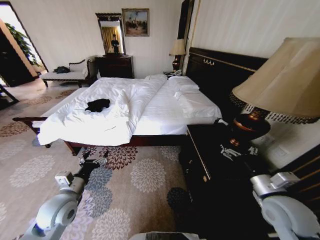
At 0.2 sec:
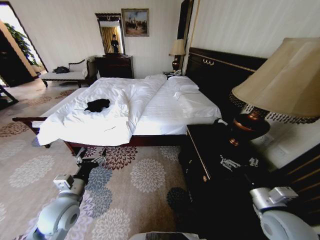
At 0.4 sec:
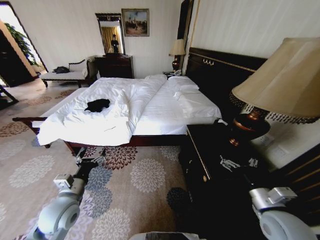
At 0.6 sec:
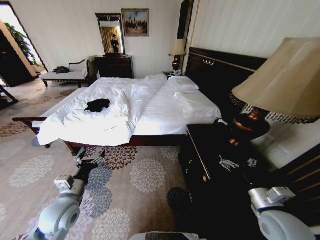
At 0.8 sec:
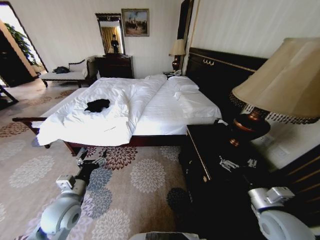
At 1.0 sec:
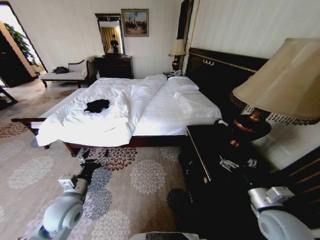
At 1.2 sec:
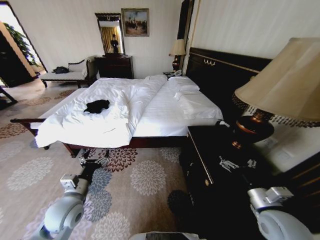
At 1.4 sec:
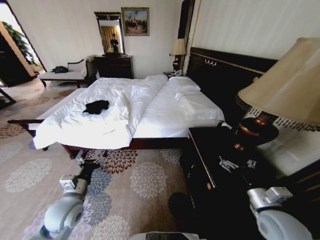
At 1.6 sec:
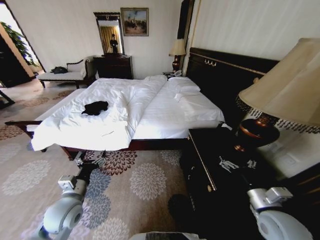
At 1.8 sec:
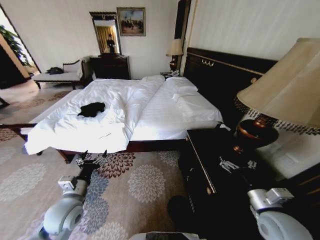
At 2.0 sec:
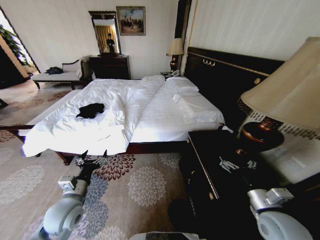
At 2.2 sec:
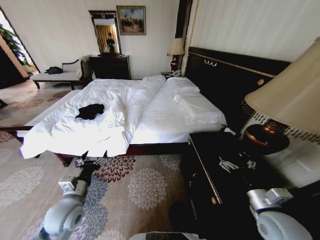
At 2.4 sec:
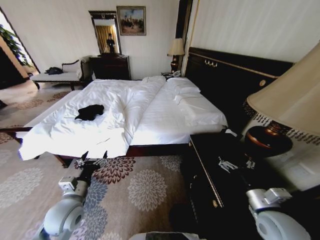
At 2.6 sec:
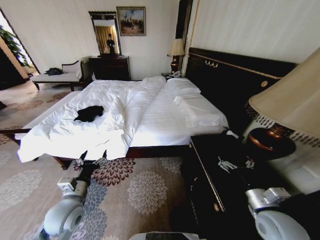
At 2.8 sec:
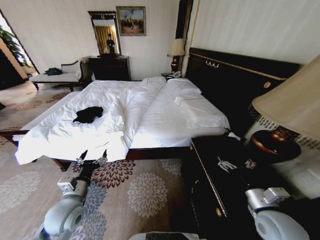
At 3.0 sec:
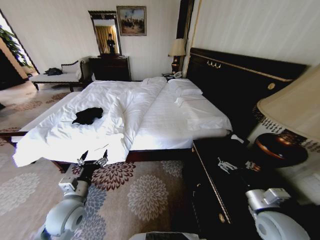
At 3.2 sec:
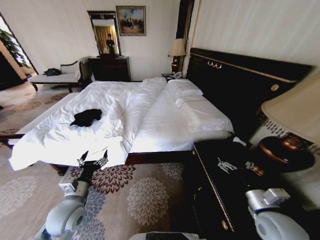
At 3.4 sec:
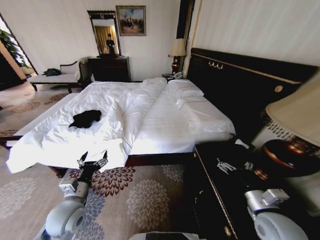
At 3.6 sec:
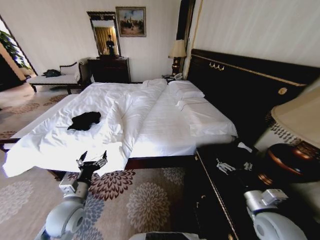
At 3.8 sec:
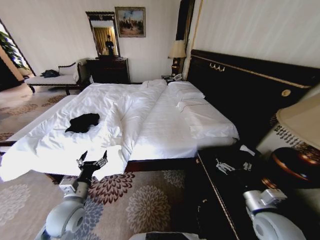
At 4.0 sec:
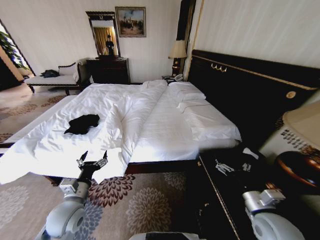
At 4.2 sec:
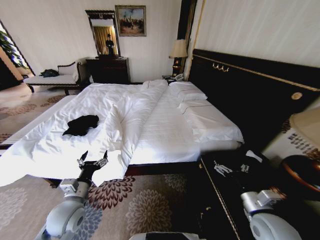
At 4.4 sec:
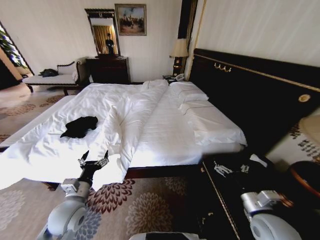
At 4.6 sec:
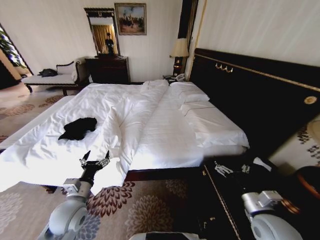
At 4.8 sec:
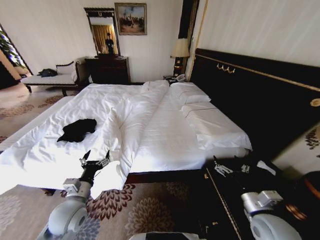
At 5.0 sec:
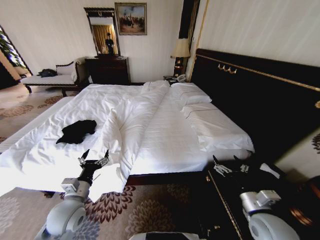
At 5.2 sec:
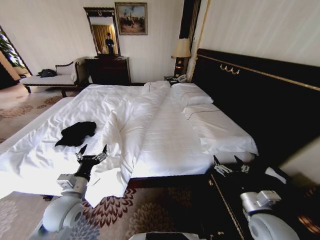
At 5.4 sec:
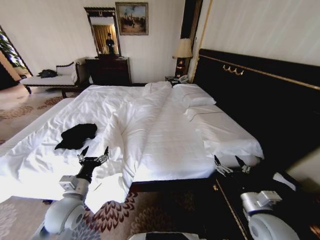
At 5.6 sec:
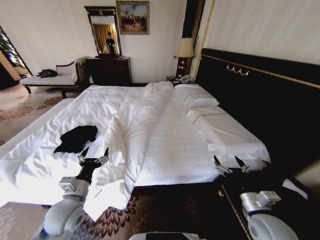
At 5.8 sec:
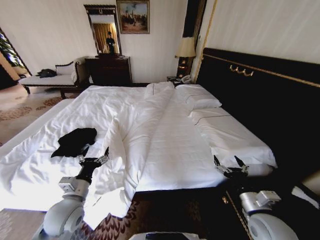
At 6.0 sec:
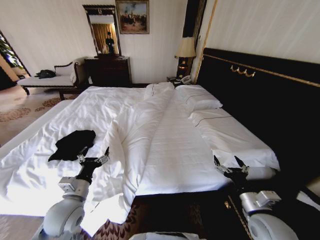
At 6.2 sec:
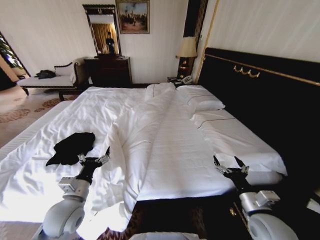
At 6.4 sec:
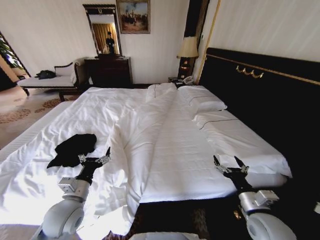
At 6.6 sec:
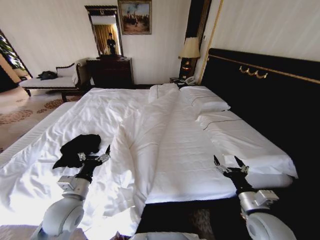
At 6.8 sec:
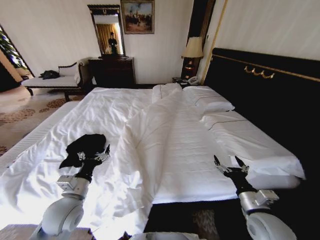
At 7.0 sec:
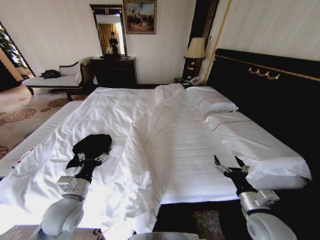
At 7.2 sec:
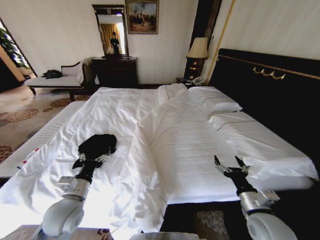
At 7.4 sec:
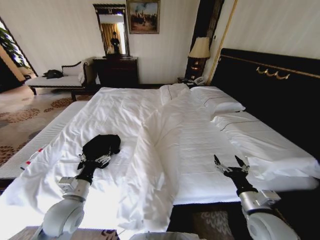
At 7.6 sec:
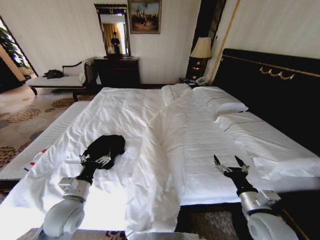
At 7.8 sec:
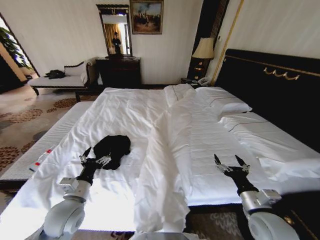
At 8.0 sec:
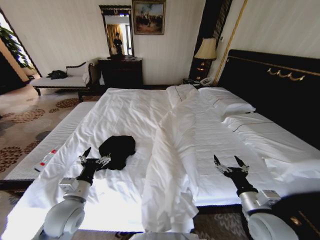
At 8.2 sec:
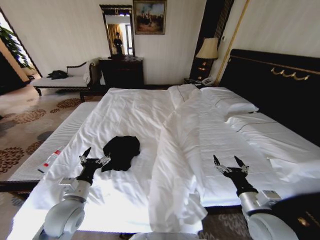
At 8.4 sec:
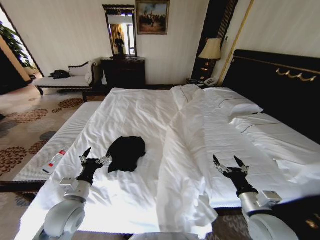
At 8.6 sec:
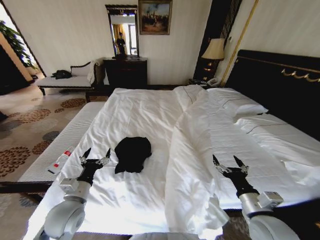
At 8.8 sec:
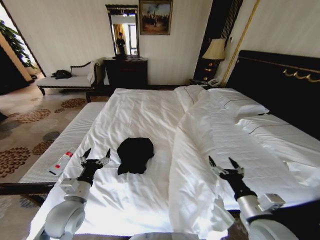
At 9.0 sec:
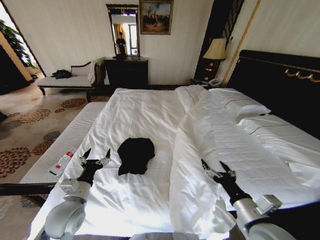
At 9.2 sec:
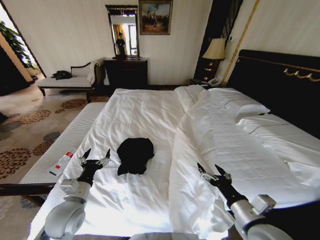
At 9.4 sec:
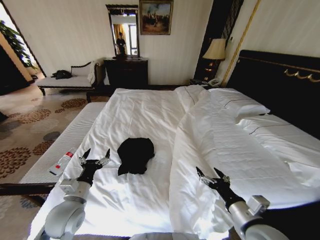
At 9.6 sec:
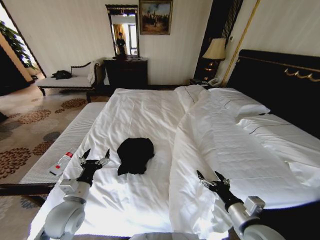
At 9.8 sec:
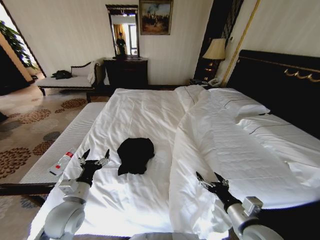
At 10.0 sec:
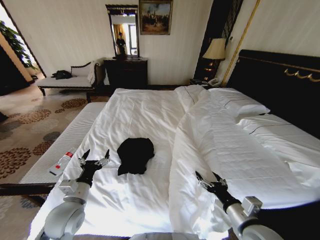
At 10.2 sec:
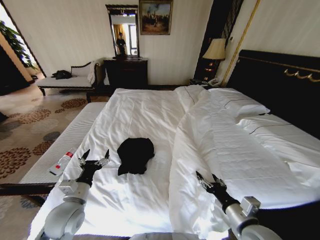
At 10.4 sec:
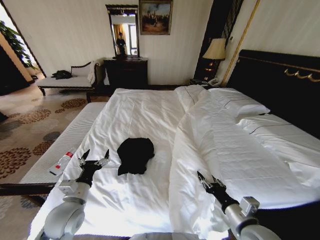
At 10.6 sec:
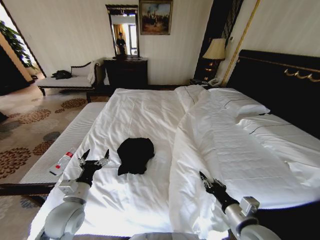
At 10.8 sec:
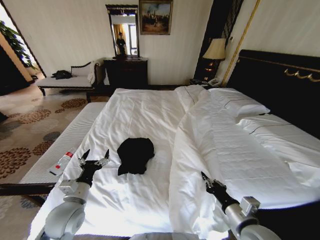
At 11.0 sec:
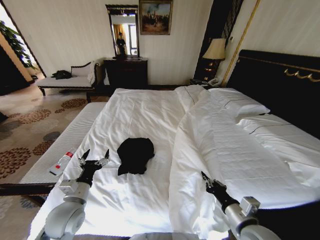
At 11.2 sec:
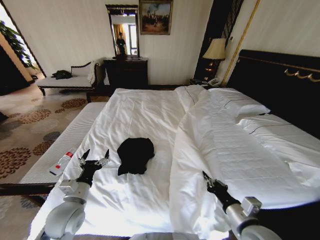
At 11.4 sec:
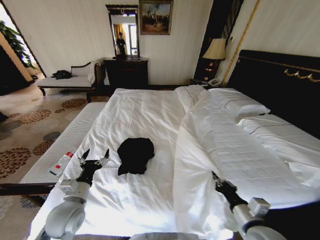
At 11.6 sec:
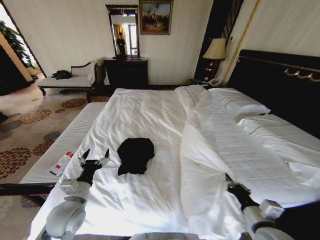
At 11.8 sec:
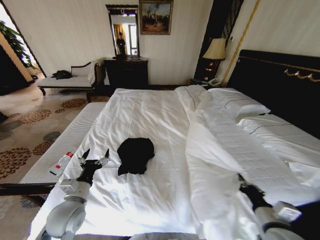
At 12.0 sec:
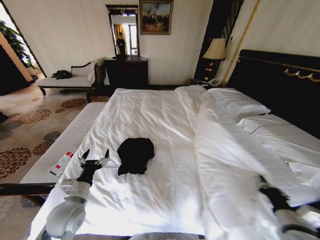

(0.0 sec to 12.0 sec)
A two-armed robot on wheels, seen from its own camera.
Task of the whole recording: Fold the clothes on the bed.
7.6 sec - 9.0 sec: The right gripper ends up approximately 5 cm from where it was.
9.0 sec - 10.4 sec: The right gripper closes up.
10.4 sec - 12.0 sec: The right gripper is displaced to the right by some 10 cm, and closes its fingers.

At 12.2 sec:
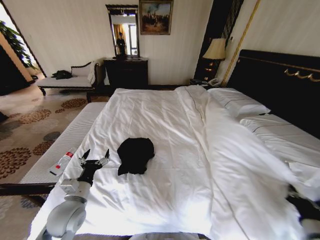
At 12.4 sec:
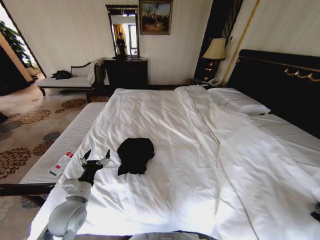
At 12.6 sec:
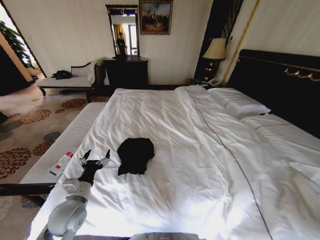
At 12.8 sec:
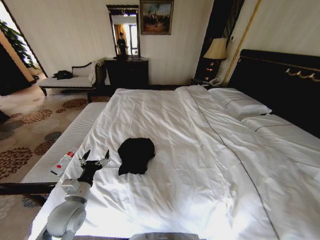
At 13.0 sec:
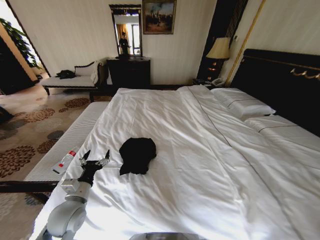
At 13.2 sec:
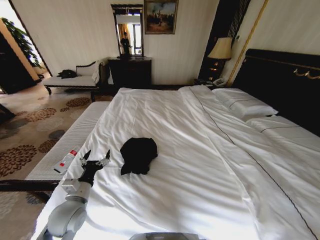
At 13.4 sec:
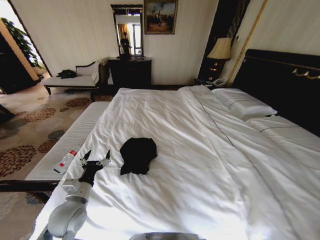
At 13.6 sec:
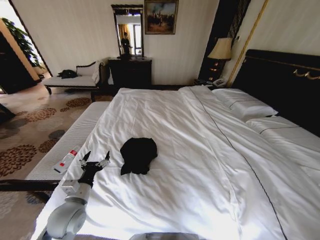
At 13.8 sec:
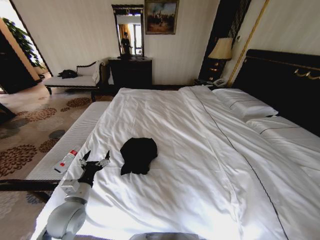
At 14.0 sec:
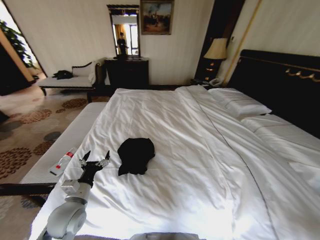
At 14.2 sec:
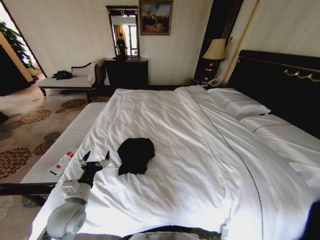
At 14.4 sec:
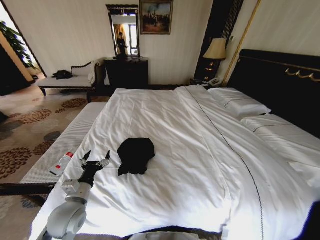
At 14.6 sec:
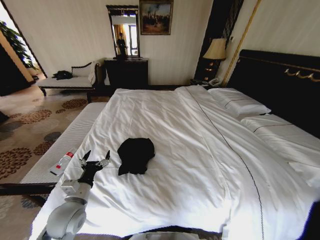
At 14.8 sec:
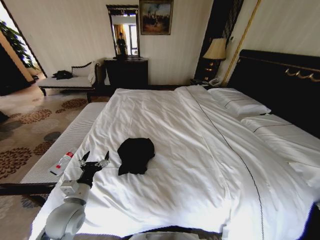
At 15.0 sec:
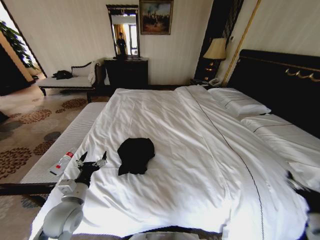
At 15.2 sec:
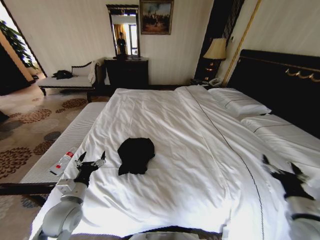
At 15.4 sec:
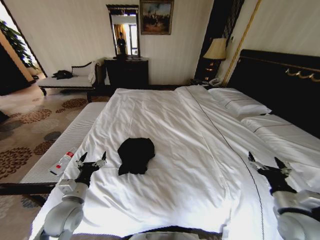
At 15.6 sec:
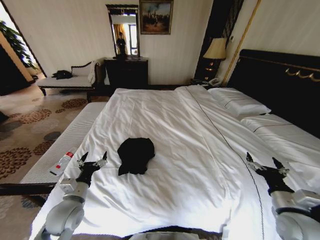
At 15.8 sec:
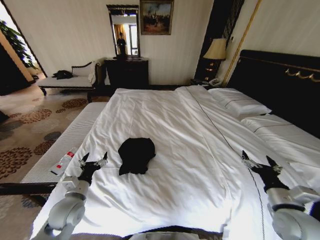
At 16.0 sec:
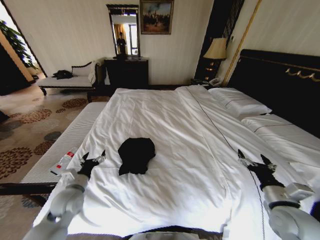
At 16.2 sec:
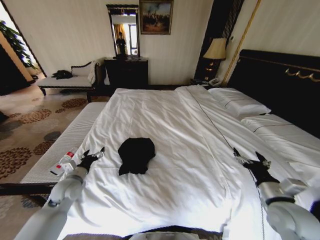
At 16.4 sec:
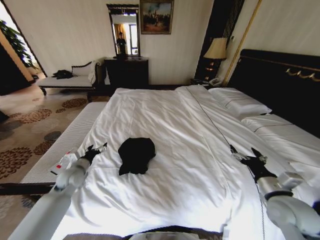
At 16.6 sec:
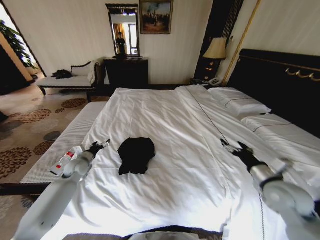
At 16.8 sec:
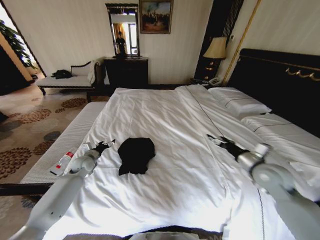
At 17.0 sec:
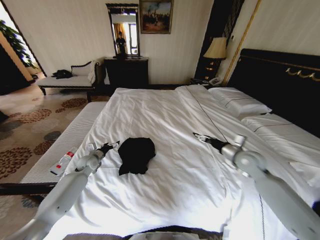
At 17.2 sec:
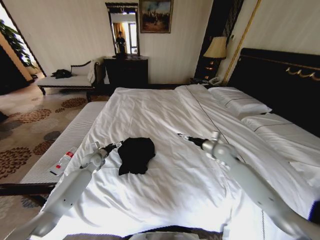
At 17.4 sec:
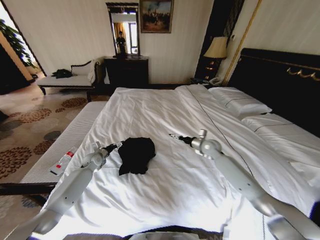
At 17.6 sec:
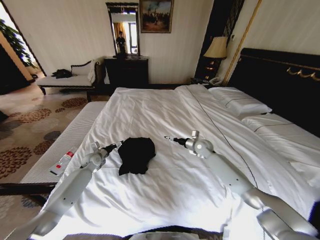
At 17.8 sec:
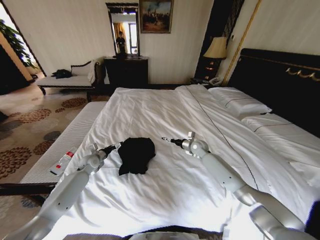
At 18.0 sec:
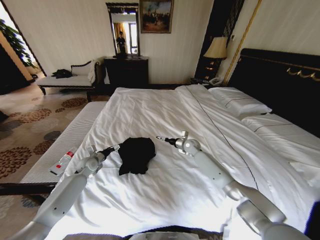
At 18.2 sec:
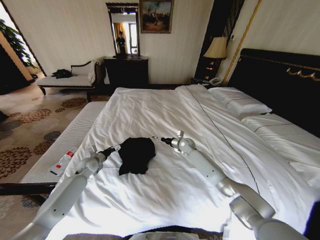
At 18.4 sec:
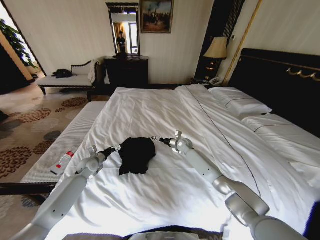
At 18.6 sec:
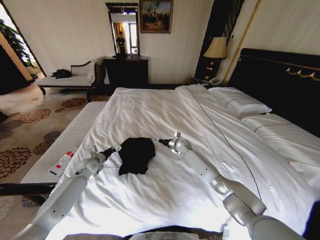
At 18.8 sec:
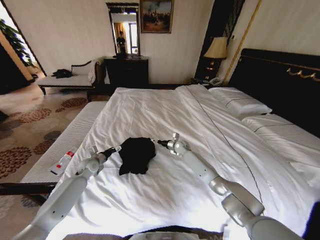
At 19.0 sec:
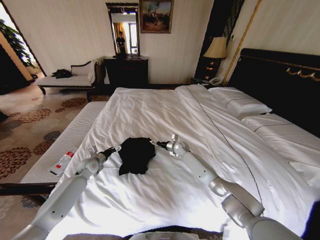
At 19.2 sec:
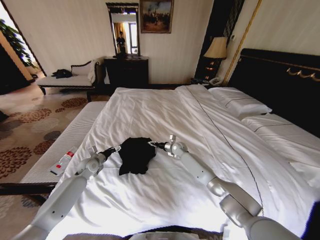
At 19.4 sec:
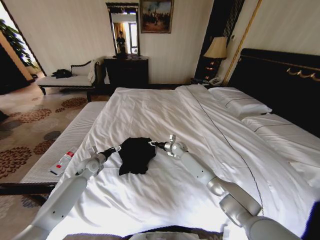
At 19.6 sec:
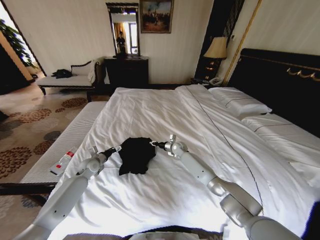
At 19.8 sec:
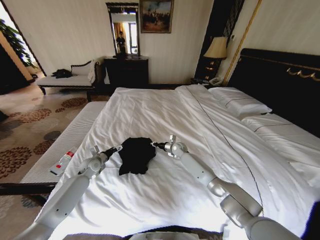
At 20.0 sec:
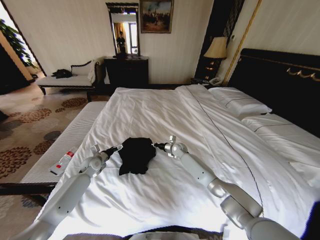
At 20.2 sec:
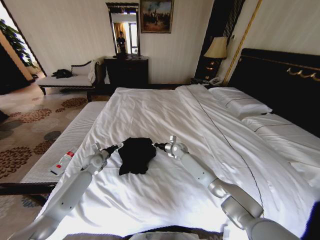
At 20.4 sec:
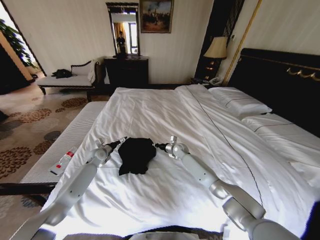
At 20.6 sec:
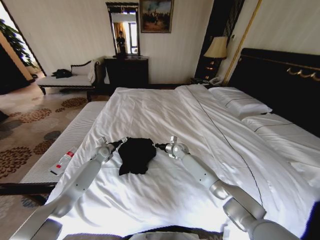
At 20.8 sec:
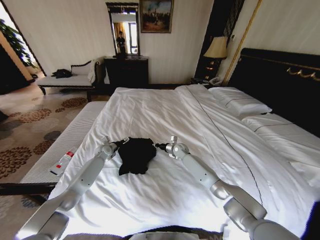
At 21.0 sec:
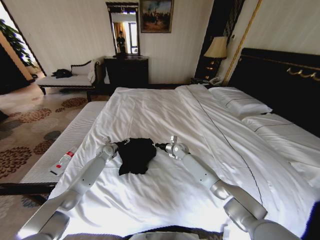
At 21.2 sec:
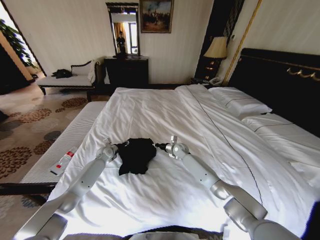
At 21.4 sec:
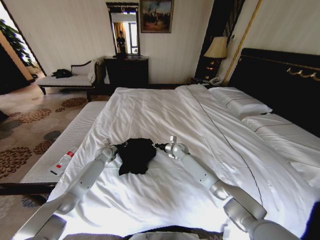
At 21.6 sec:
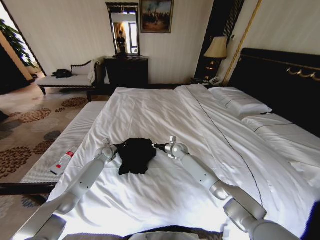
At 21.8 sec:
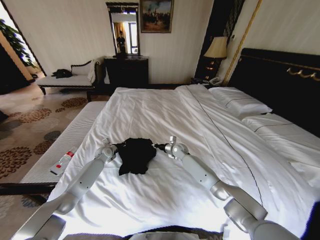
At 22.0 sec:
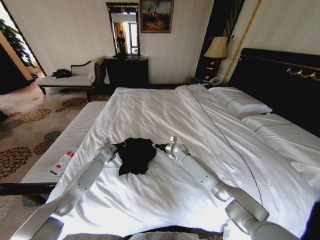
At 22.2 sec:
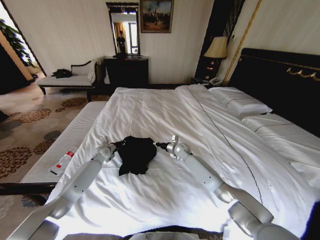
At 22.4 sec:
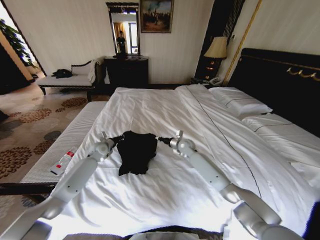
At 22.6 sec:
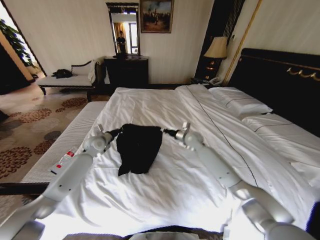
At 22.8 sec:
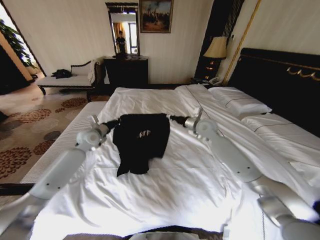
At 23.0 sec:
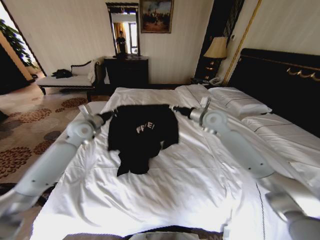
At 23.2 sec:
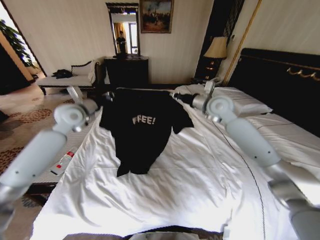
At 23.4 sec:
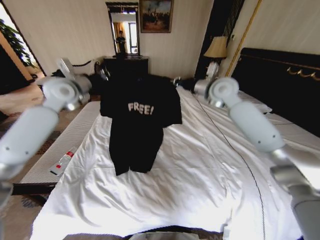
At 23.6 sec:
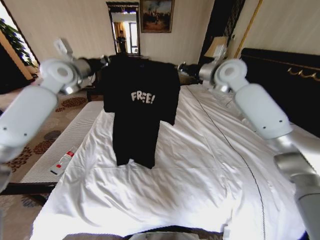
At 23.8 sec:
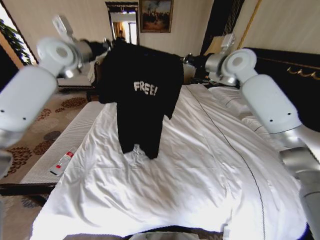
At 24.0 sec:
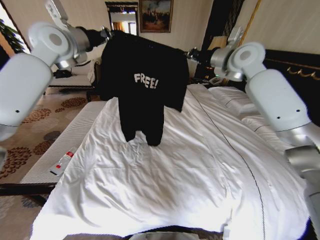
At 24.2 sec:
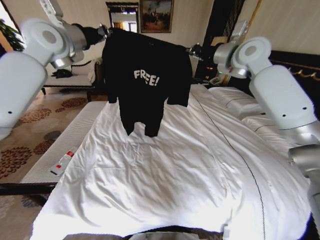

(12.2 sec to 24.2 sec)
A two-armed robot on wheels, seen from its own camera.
Task of the whole recording: Fold the clothes on the bed.
12.2 sec - 13.8 sec: The right gripper heads to the right, downward and backward, covering about 25 cm.
13.8 sec - 15.2 sec: The right gripper shifts roughly 30 cm to the left, upward and forward, and opens.
15.2 sec - 16.6 sec: The right gripper shifts about 10 cm forward. The left gripper travels forward by approximately 20 cm.
16.6 sec - 18.2 sec: The right gripper travels forward and to the left by some 40 cm.
18.2 sec - 19.8 sec: The right gripper closes up.
19.8 sec - 21.2 sec: The left gripper is displaced forward by some 10 cm, and closes.
21.2 sec - 22.6 sec: The grippers both shift upward by about 10 cm. The left gripper closes.
22.6 sec - 24.2 sec: Both grippers travel together upward, approximately 40 cm.
